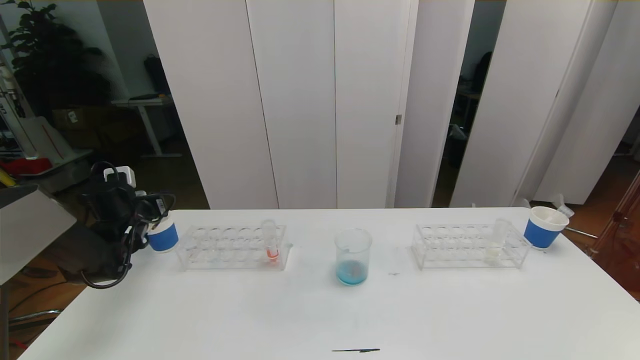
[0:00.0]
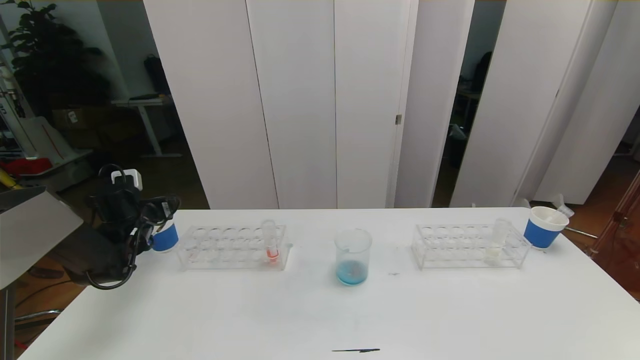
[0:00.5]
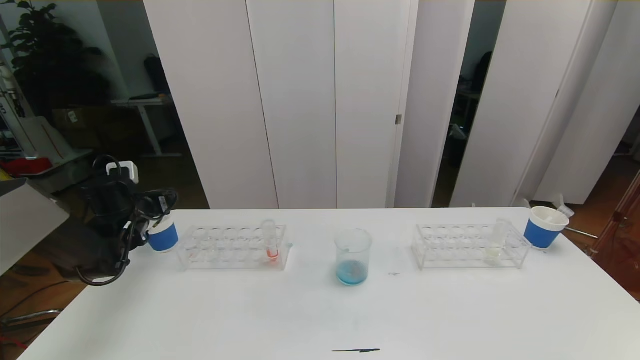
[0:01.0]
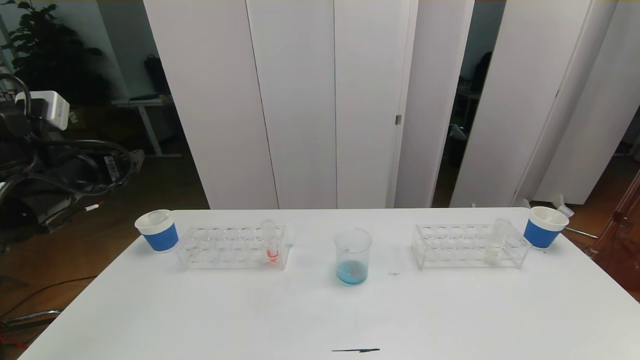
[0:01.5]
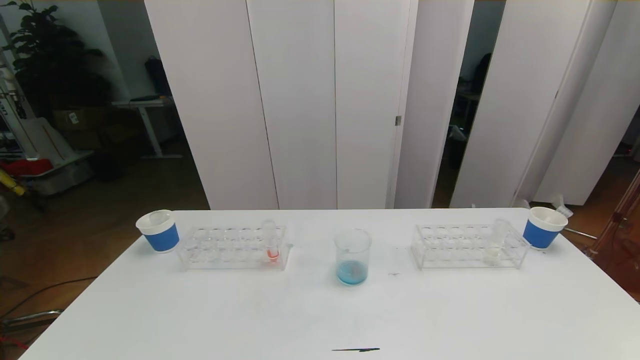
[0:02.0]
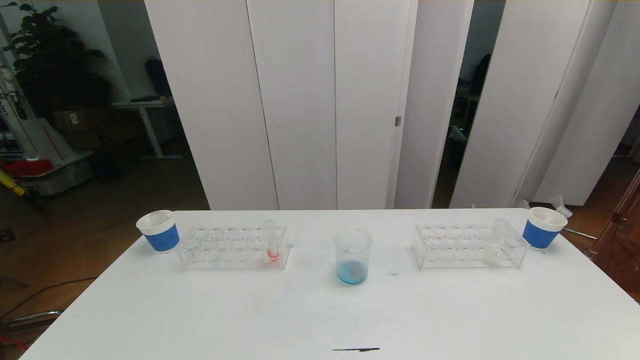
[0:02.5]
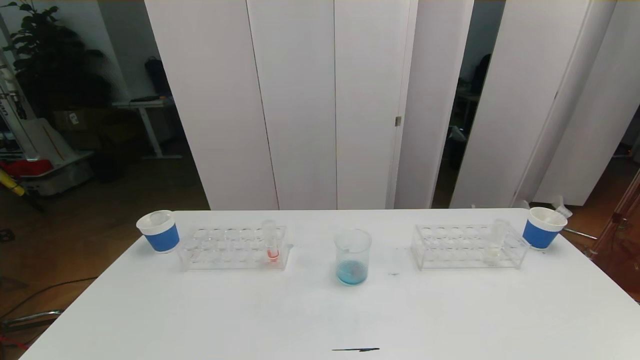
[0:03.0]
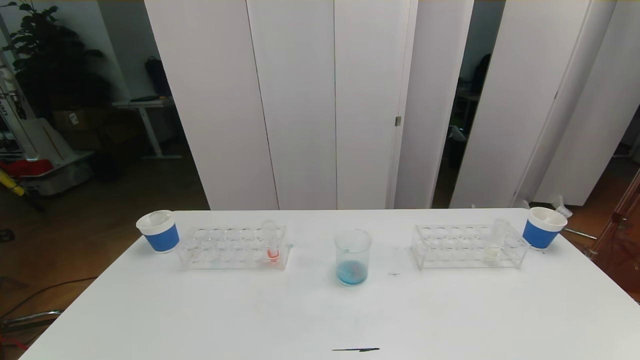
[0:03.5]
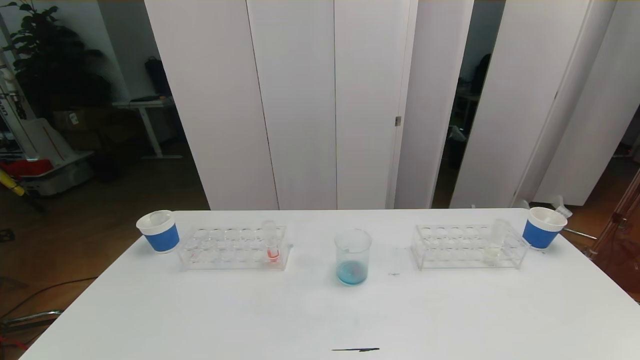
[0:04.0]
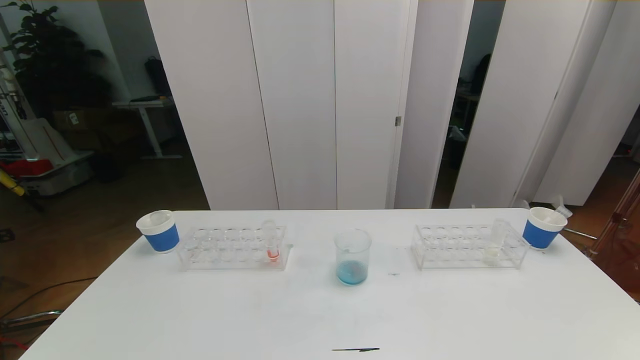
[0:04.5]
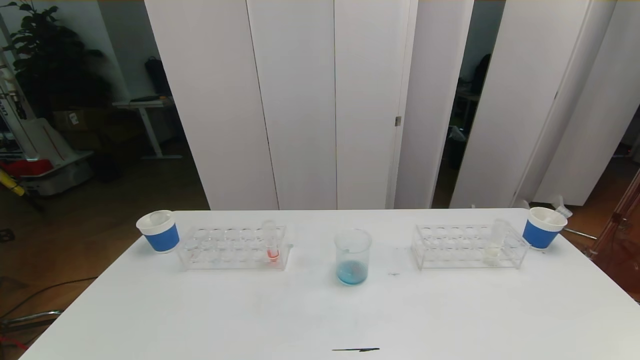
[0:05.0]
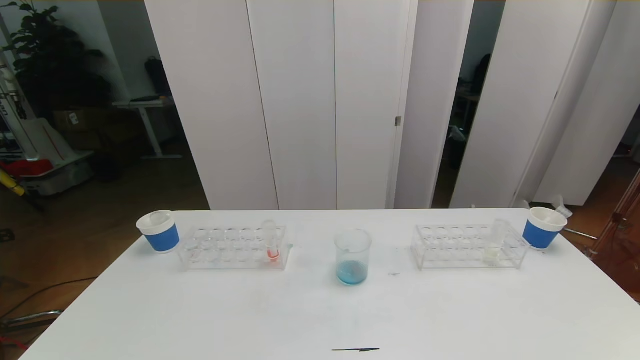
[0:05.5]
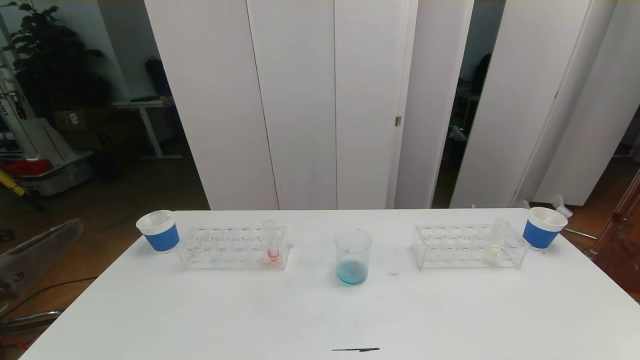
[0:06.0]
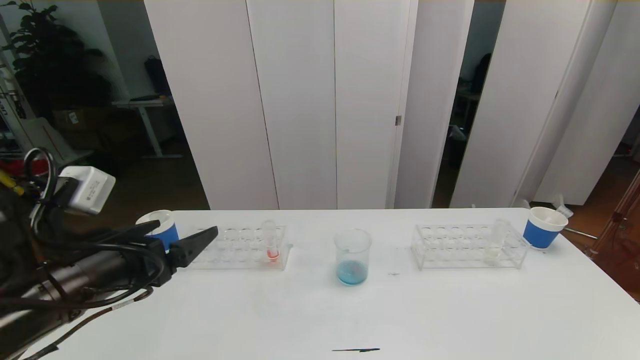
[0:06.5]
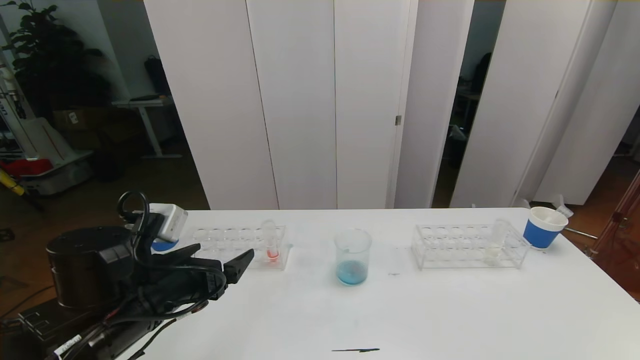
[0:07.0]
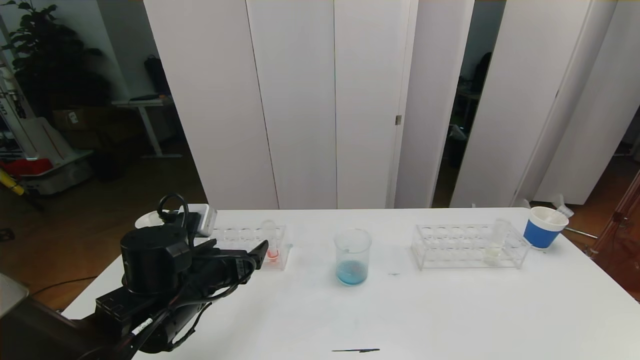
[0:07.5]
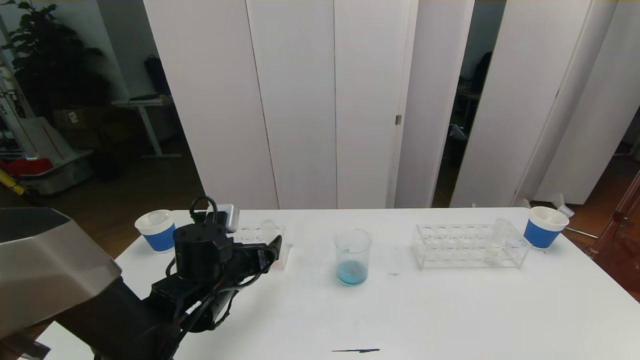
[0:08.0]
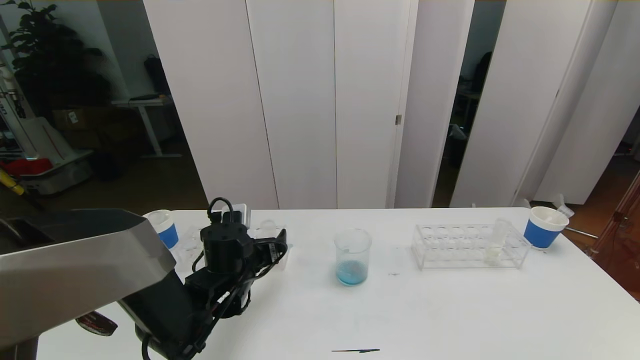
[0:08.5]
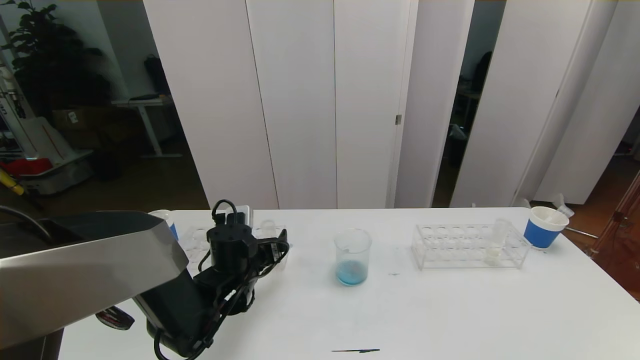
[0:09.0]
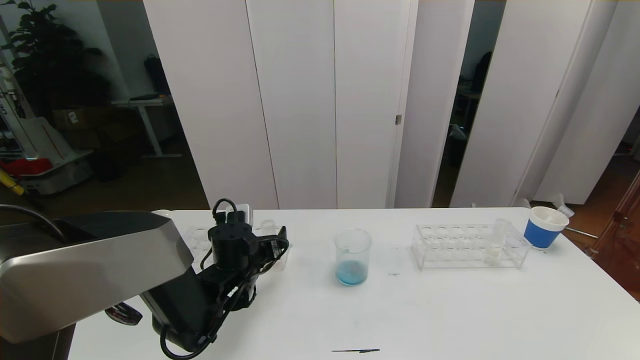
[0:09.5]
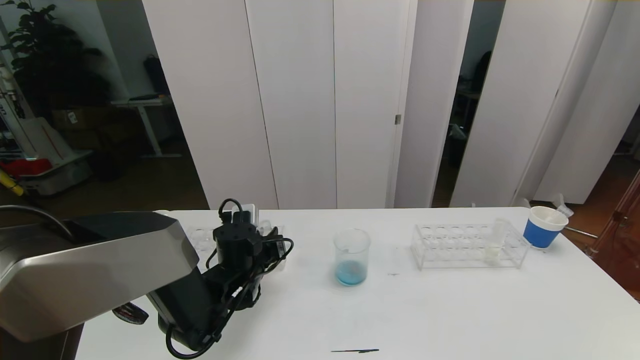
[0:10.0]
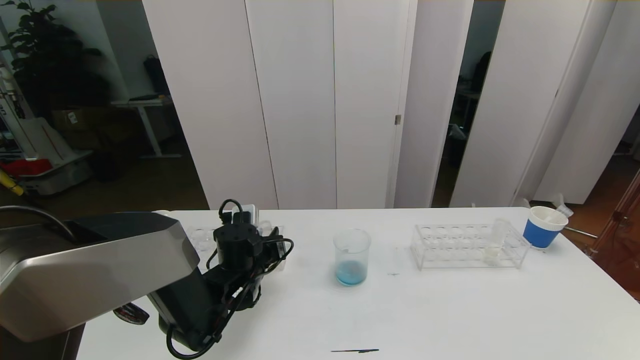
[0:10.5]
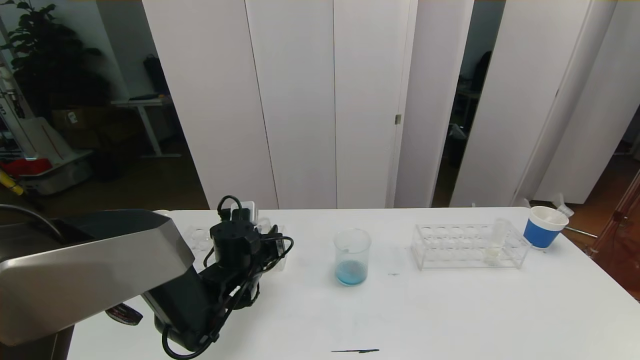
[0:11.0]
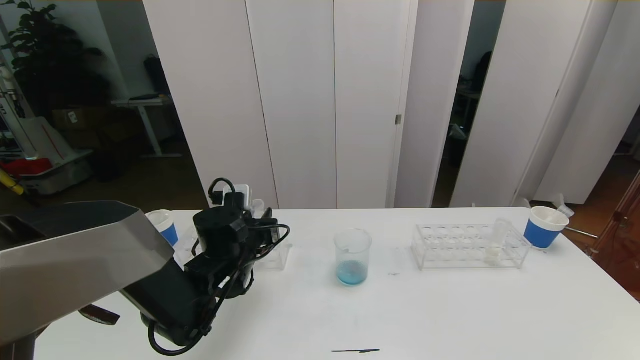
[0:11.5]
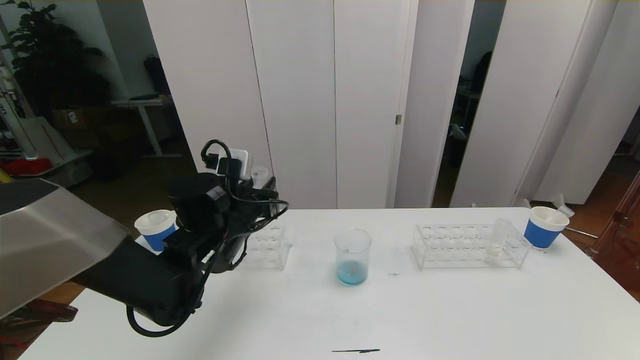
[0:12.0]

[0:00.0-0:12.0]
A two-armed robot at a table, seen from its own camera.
Task of the whole recording: pick up the test tube with red pigment the test tube with blue pigment and the test tube with white pigment by grippers and pour them into the beaker.
Step, 0:00.0 to 0:04.5: Pour the blue reagent into the graduated cylinder and place the test tube into the paper cup.
0:00.0 to 0:02.0: The left gripper moves backward and upward, about 40 cm, and opens its fingers.
0:06.0 to 0:08.0: The left gripper moves forward, downward and to the right, about 30 cm.
0:08.0 to 0:10.0: The left gripper travels forward by approximately 5 cm, and closes its fingers.
0:10.0 to 0:12.0: The left gripper shifts approximately 10 cm upward.

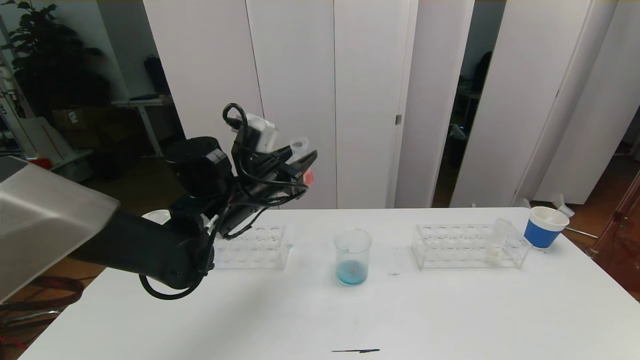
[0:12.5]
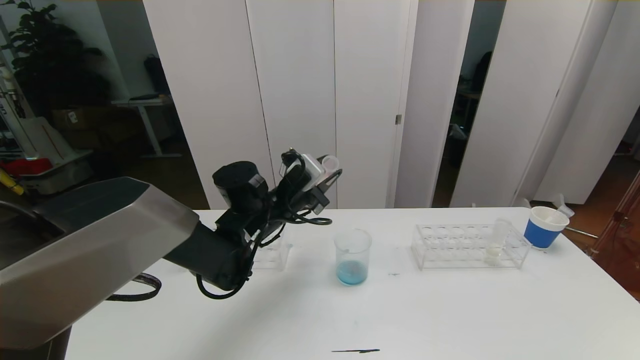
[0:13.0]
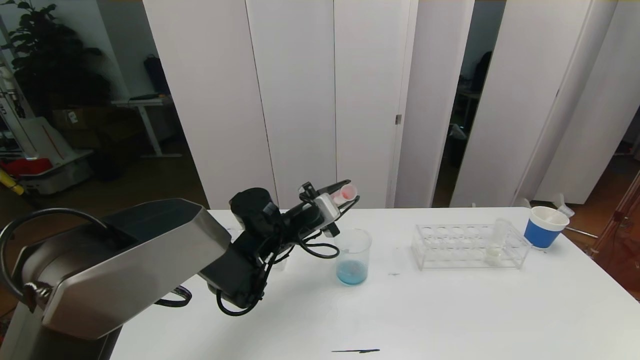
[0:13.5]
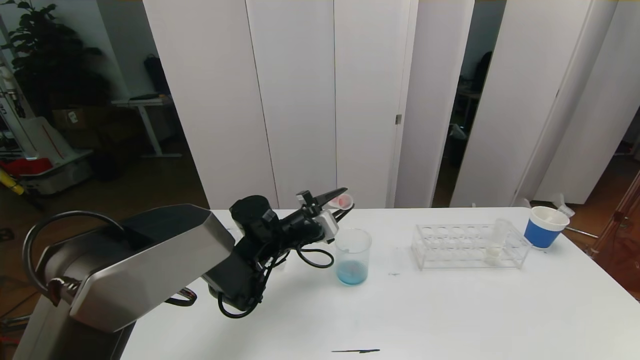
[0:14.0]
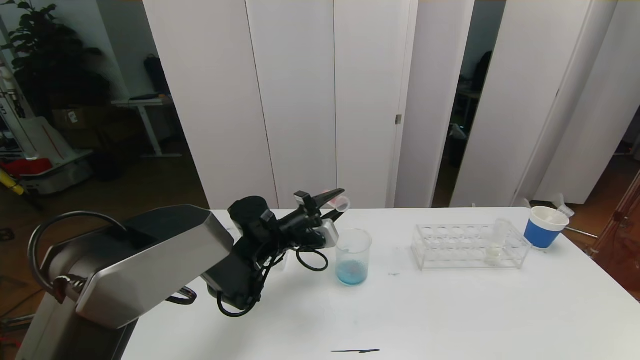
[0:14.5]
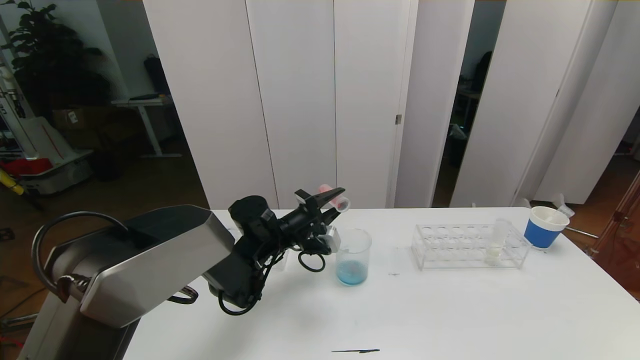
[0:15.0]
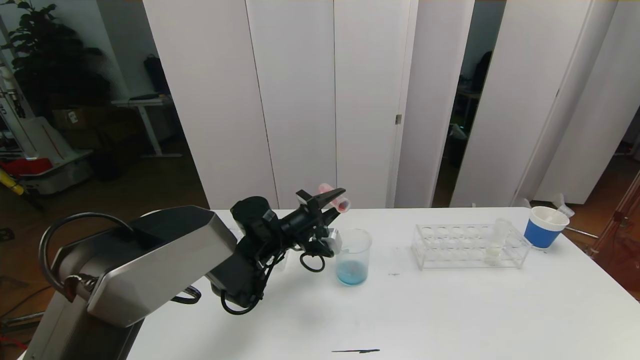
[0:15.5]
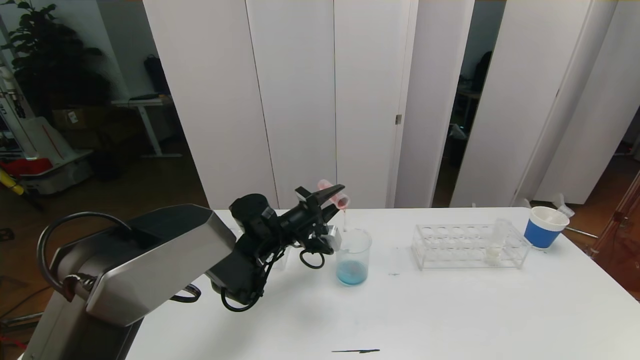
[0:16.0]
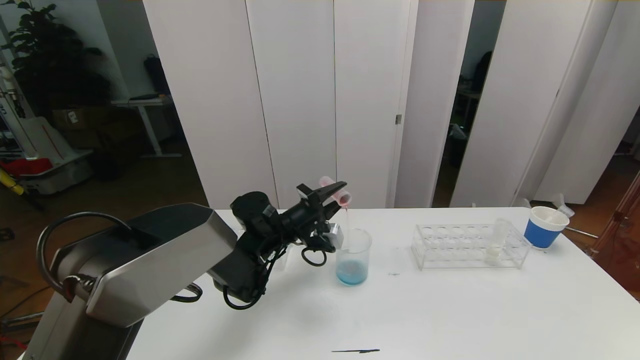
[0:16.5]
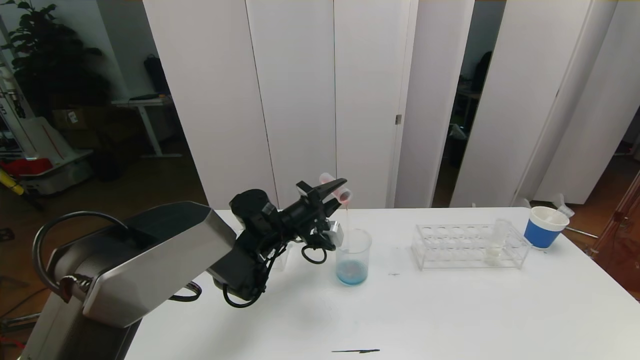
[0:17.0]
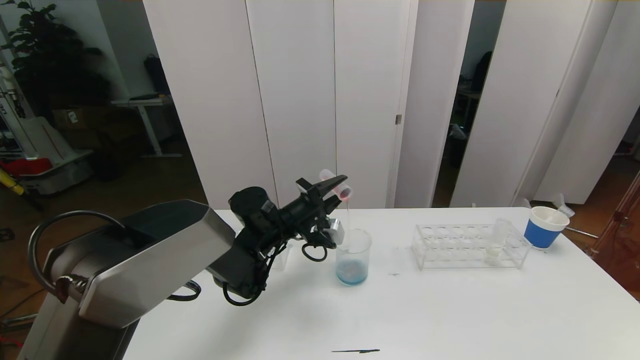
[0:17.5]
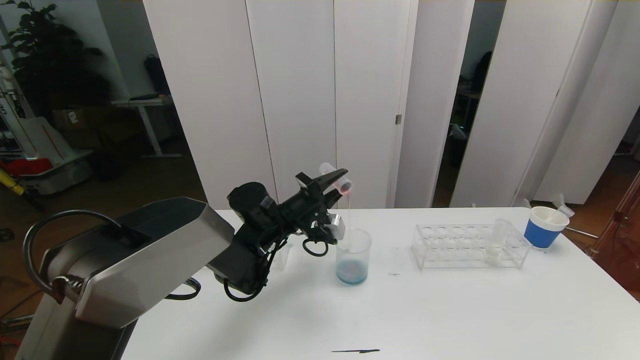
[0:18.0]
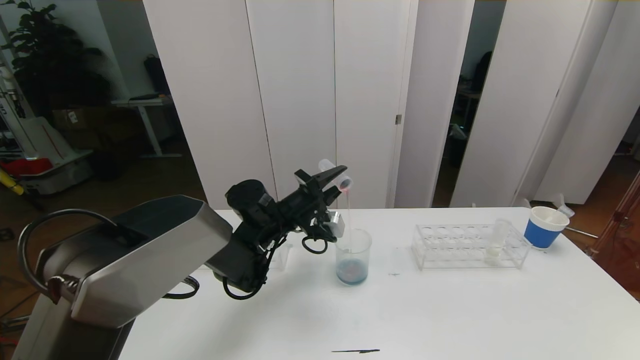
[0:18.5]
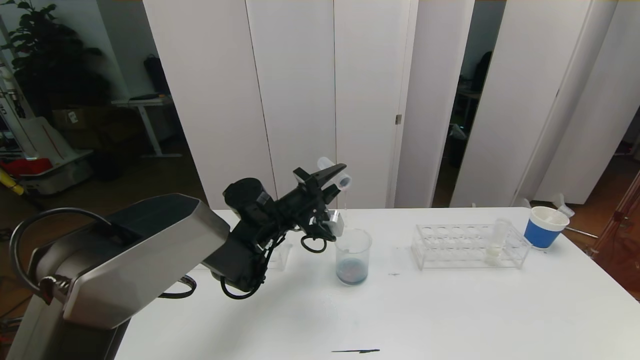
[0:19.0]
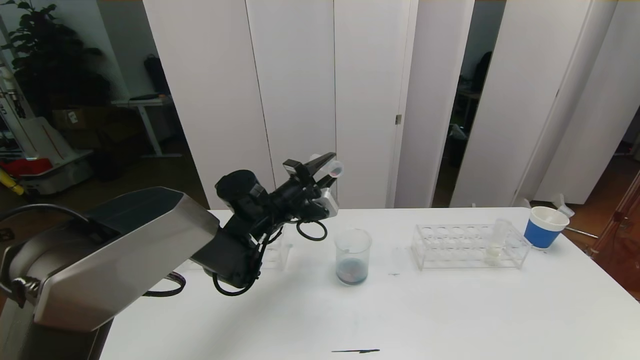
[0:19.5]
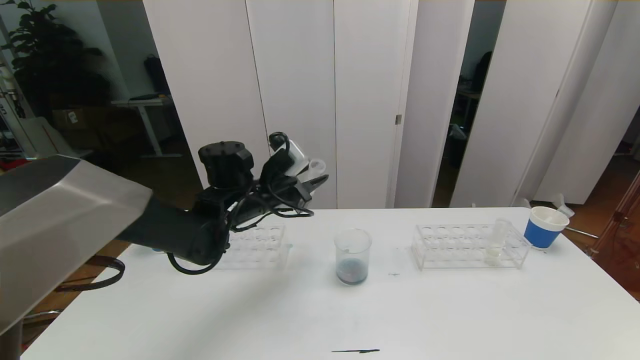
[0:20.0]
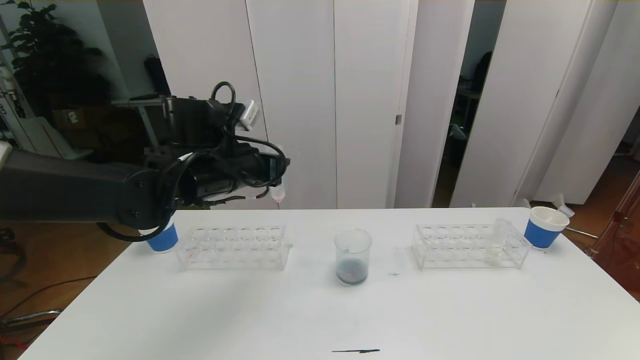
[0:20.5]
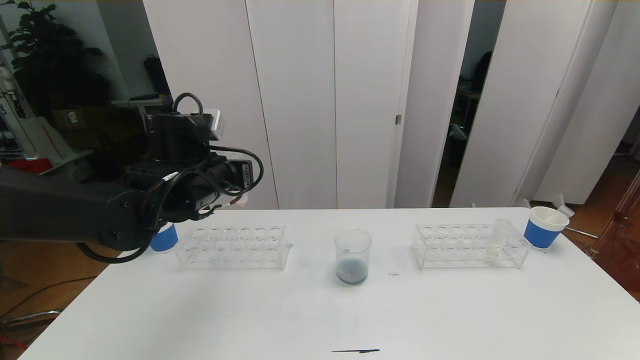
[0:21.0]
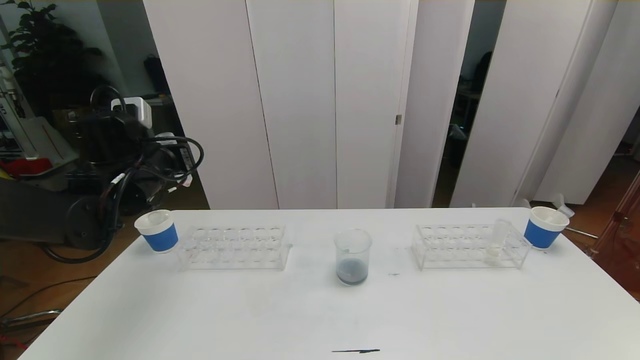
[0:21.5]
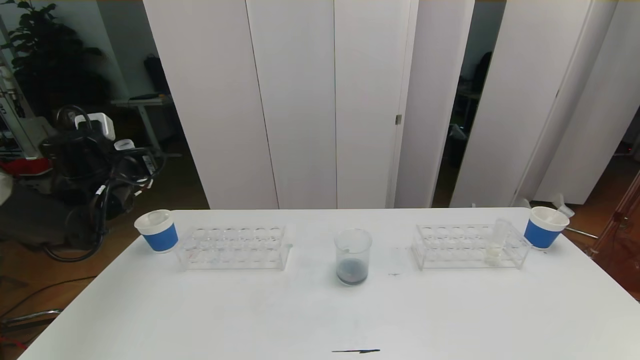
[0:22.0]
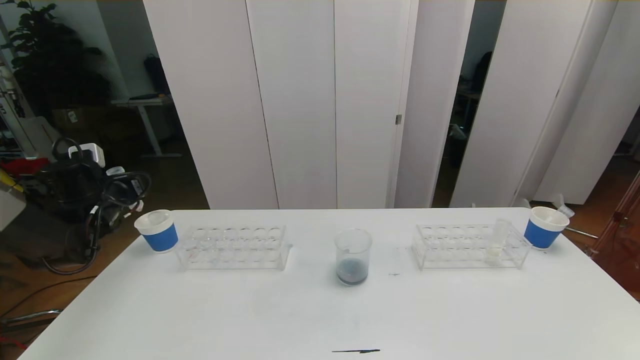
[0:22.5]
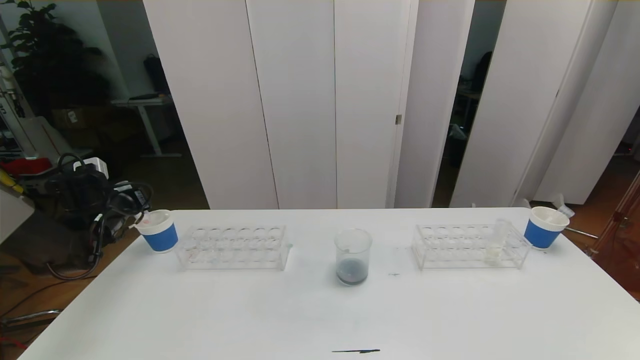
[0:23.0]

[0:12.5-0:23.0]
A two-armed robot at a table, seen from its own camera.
Task of the whole recording: pick up the test tube with red pigment the test tube with blue pigment and the test tube with white pigment by grippers and pour them into the beaker.
0:12.5 to 0:14.5: The left gripper goes roughly 10 cm downward.
0:14.5 to 0:16.5: There are only small adjustments of the grippers.
0:16.5 to 0:19.0: The grippers stay close to where they were, moving slightly.
0:19.0 to 0:21.0: The left gripper travels upward, to the left and backward by about 15 cm.
0:21.0 to 0:23.0: The left gripper is displaced to the left and downward by some 25 cm.
